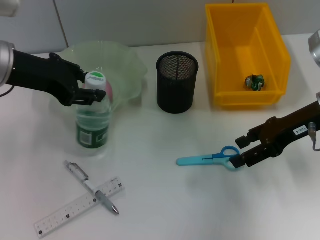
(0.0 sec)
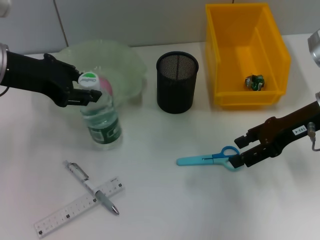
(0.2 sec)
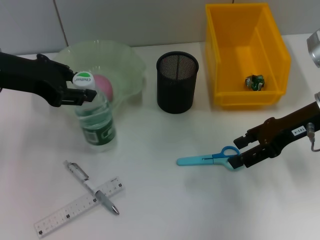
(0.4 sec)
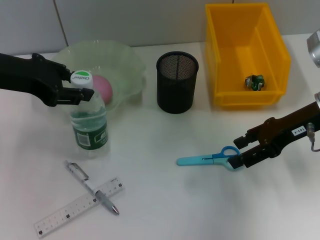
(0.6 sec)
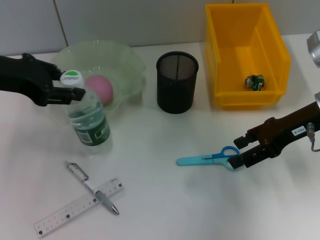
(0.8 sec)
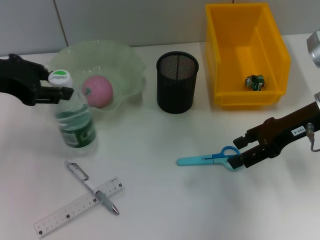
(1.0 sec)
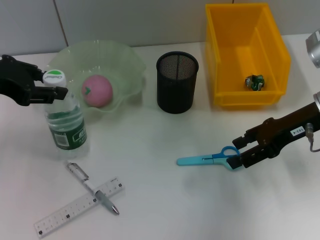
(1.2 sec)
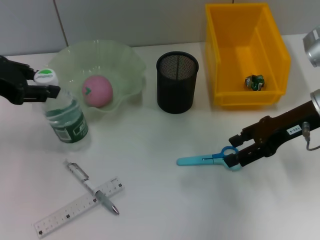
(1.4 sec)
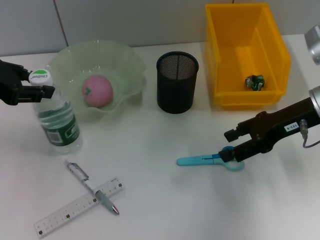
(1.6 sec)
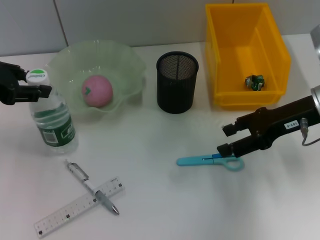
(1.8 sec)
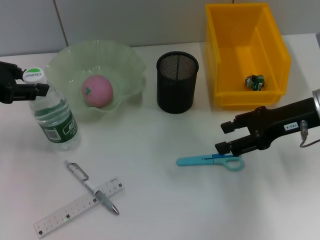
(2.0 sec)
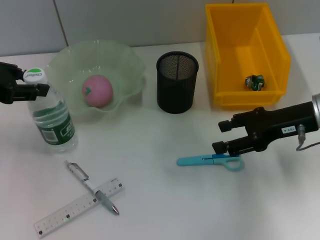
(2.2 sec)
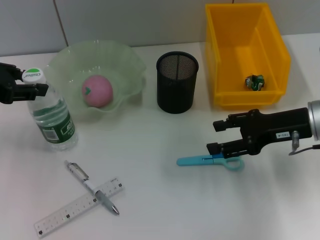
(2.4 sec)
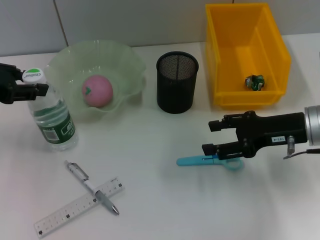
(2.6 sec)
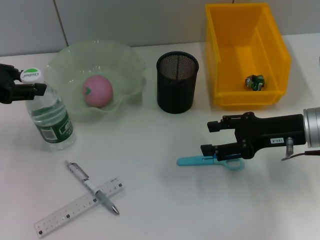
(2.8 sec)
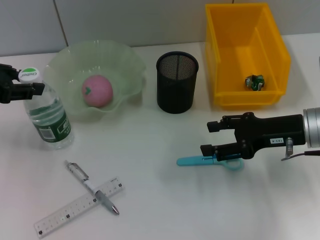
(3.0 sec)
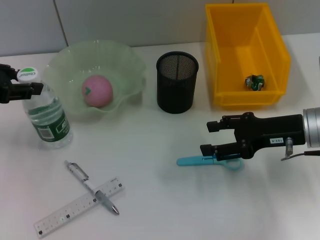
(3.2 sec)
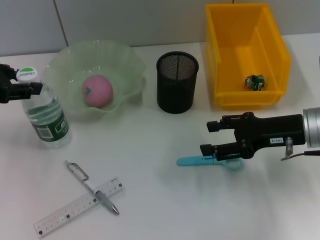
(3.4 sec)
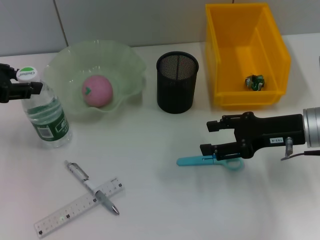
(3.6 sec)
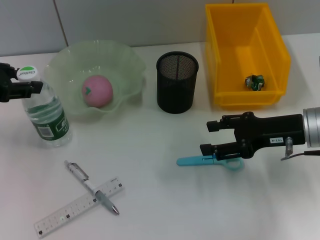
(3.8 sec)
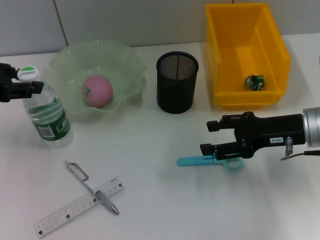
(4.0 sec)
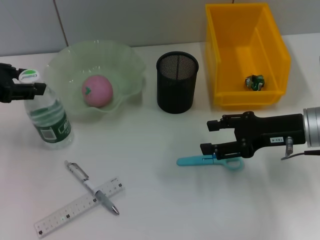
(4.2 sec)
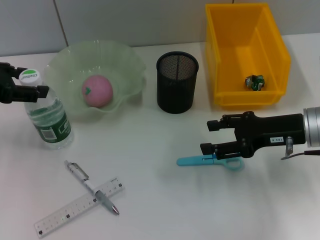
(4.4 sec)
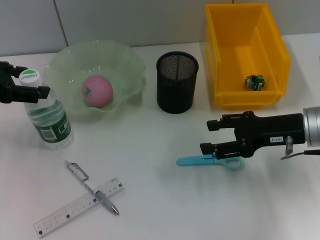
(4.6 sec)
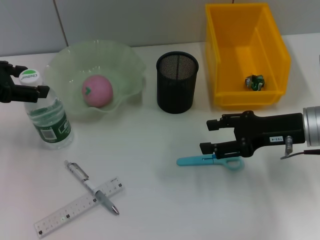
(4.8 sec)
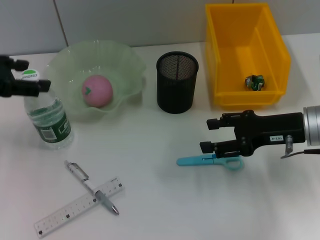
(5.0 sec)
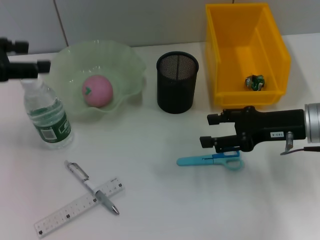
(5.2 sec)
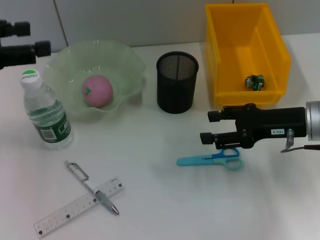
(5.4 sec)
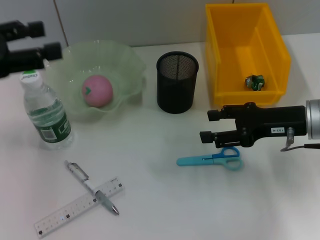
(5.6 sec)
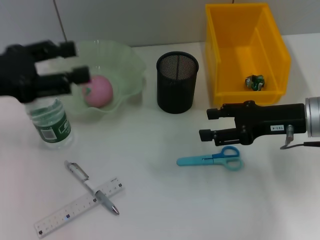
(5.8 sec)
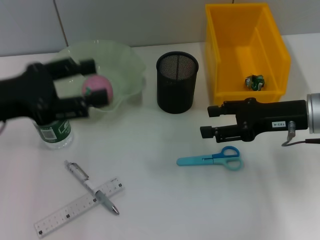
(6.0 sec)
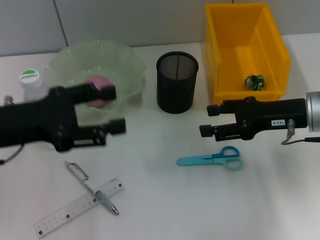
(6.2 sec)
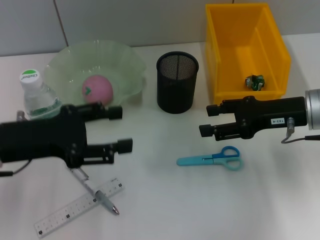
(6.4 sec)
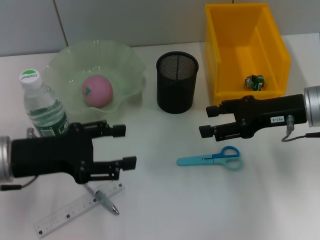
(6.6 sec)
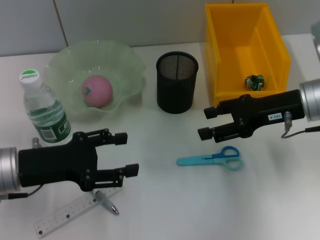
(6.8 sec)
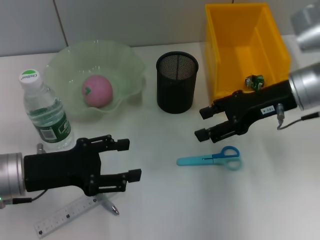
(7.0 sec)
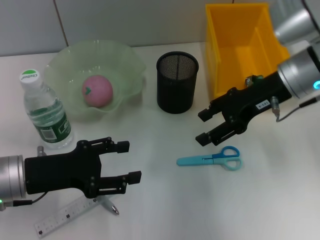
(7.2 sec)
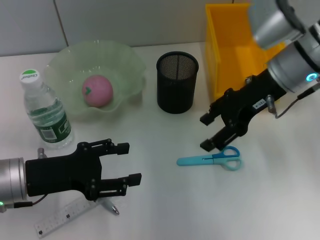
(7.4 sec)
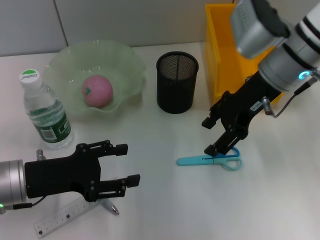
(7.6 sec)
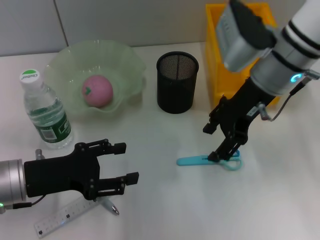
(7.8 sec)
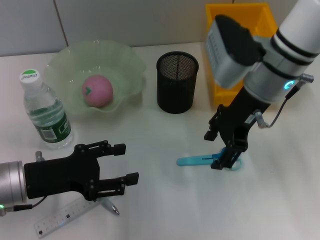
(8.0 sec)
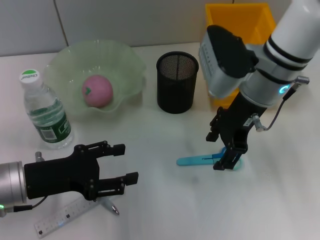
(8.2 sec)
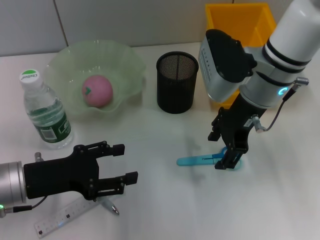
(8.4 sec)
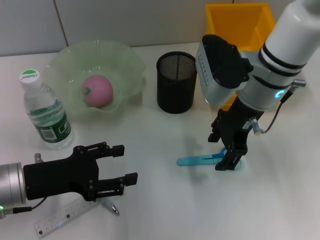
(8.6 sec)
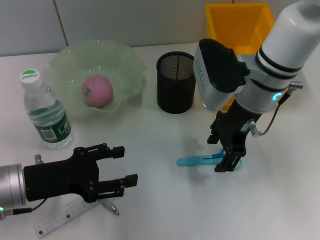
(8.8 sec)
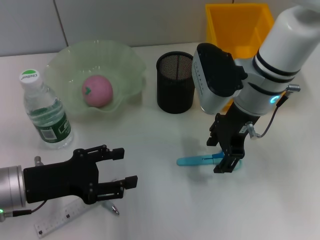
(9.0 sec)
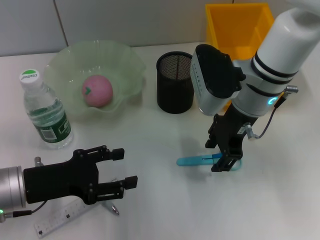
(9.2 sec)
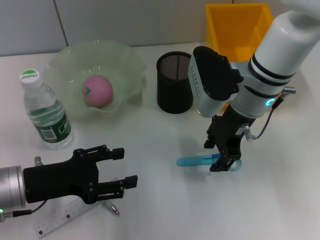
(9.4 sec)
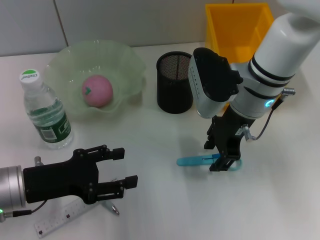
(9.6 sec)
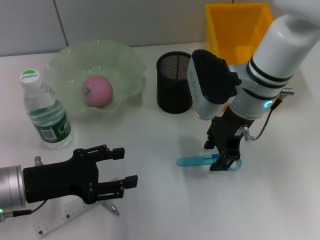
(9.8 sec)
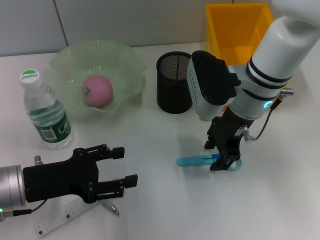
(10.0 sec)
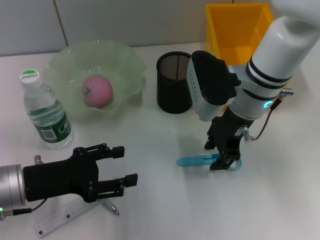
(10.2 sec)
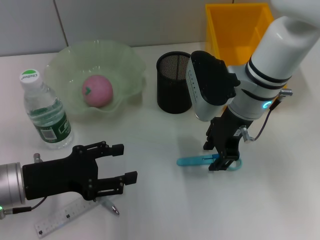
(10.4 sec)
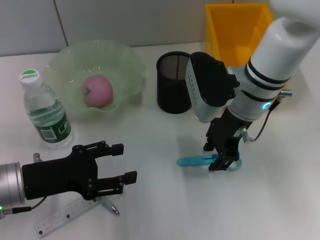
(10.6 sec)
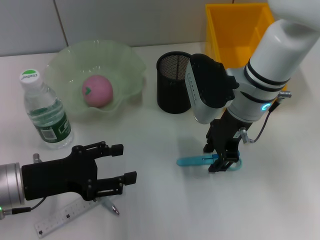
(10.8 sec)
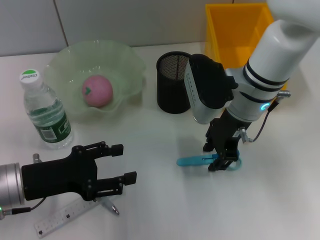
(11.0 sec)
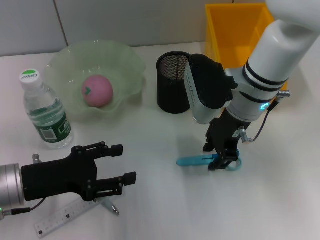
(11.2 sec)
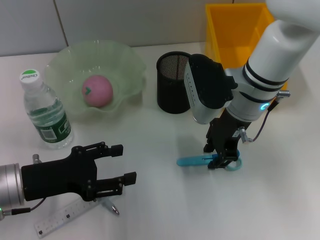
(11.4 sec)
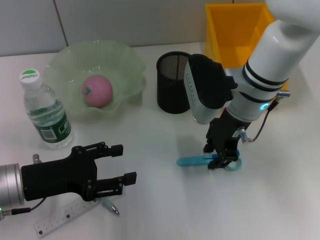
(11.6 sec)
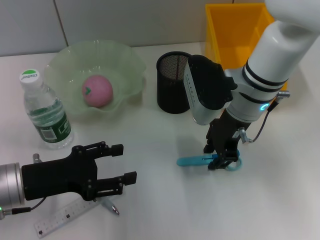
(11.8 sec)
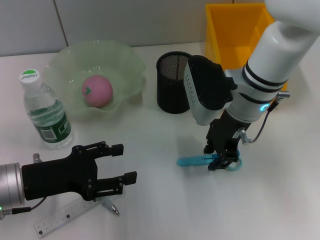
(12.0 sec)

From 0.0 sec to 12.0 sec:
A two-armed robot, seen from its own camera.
Step, from 0.0 sec to 4.6 sec: Place the water bottle on the table with the left hand.
From 0.0 sec to 1.6 sec: The left gripper moves to the left, some 5 cm.
From 1.6 sec to 3.0 sec: The right gripper moves approximately 5 cm.
From 3.0 sec to 4.4 sec: Both grippers stay put.
From 4.4 sec to 6.0 sec: The left gripper shifts by approximately 5 cm, and opens its fingers.
From 6.0 sec to 7.6 sec: The right gripper shifts approximately 15 cm to the left, upward and forward, while the left gripper is displaced downward by approximately 10 cm.
From 7.6 sec to 9.0 sec: The right gripper moves approximately 5 cm.
From 9.0 sec to 10.4 sec: Neither gripper changes place.
From 10.4 sec to 12.0 sec: The two grippers keep their place.

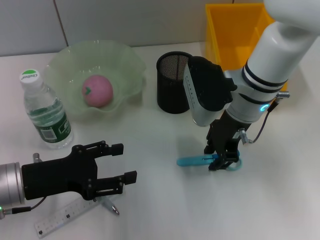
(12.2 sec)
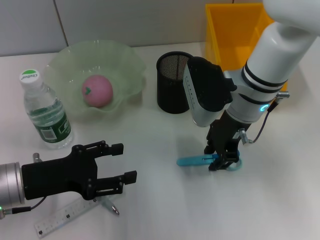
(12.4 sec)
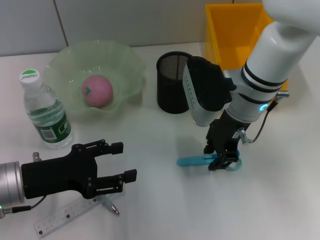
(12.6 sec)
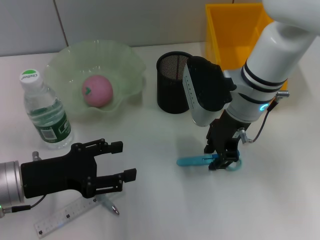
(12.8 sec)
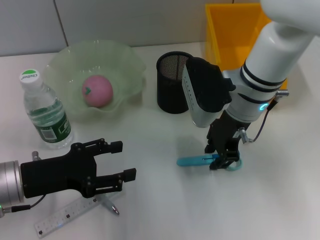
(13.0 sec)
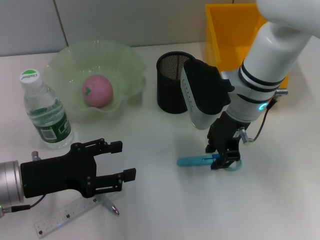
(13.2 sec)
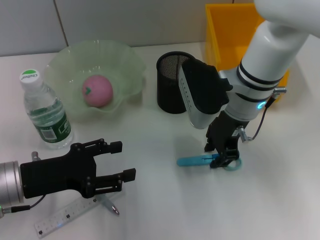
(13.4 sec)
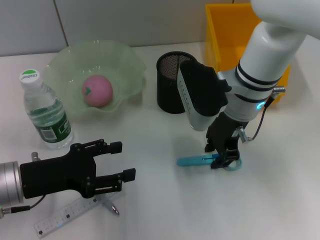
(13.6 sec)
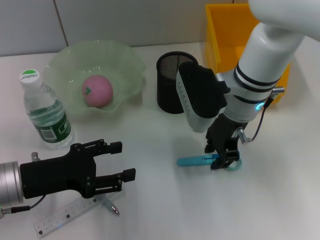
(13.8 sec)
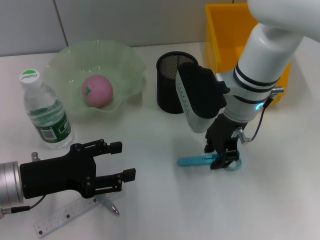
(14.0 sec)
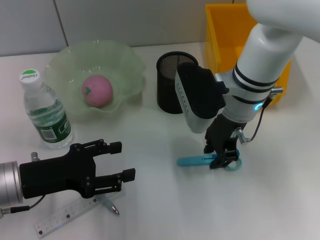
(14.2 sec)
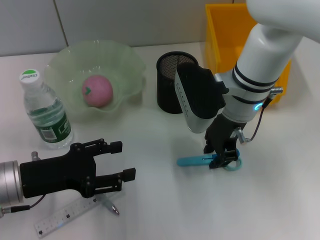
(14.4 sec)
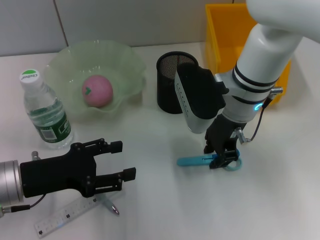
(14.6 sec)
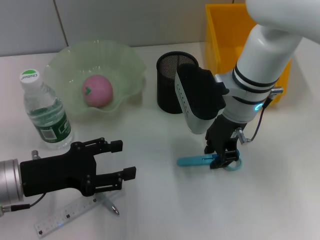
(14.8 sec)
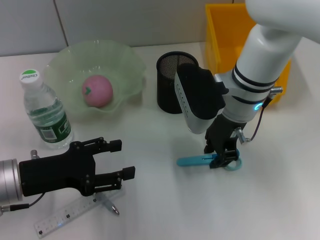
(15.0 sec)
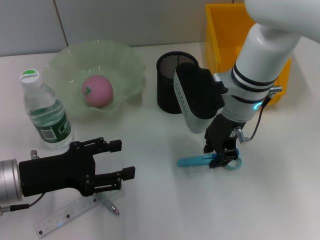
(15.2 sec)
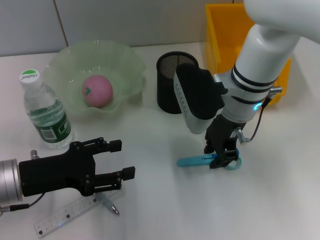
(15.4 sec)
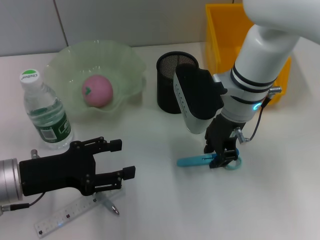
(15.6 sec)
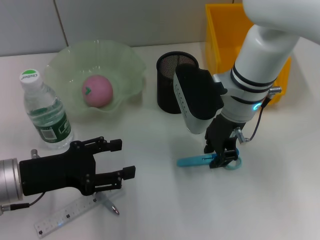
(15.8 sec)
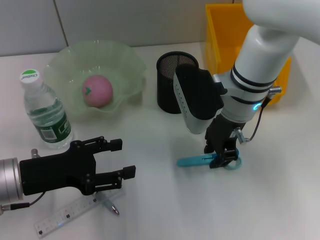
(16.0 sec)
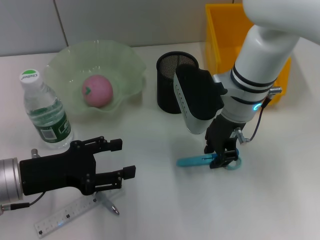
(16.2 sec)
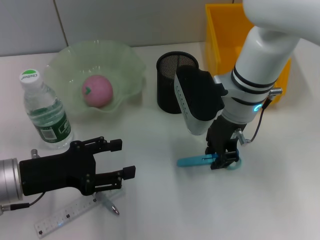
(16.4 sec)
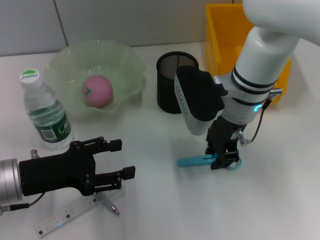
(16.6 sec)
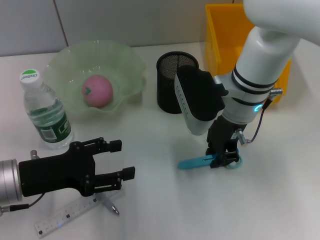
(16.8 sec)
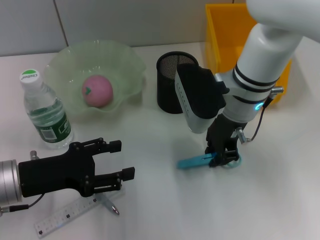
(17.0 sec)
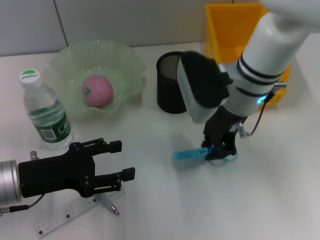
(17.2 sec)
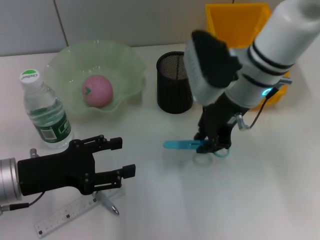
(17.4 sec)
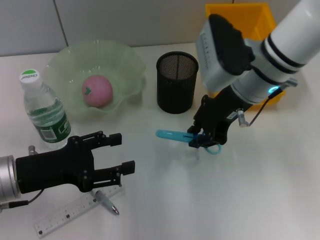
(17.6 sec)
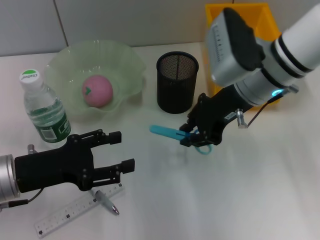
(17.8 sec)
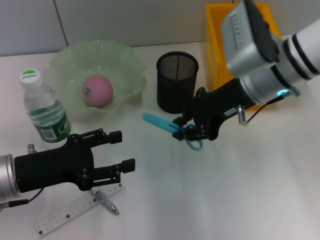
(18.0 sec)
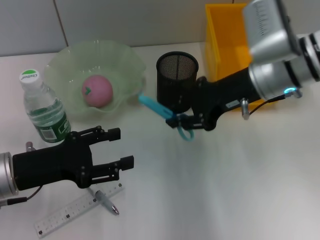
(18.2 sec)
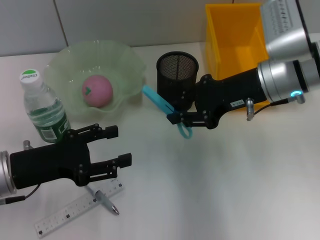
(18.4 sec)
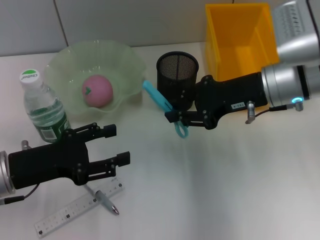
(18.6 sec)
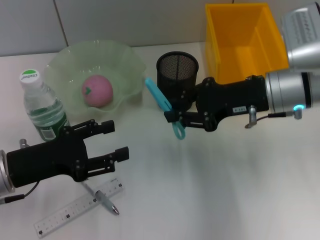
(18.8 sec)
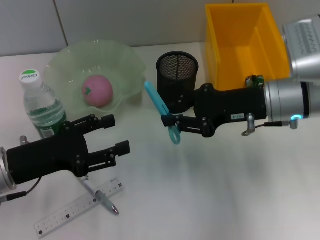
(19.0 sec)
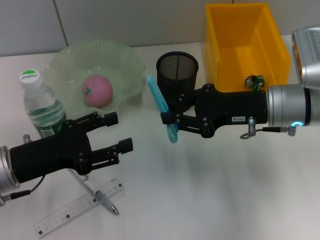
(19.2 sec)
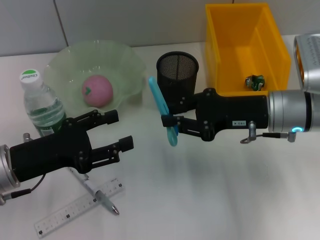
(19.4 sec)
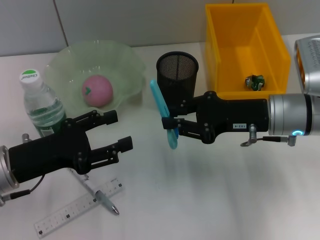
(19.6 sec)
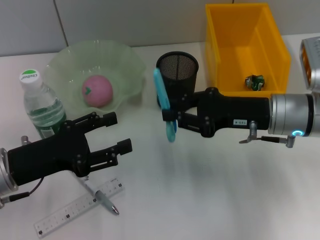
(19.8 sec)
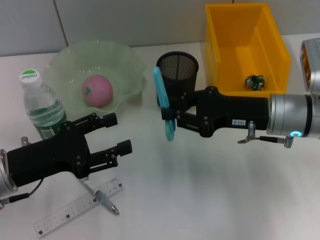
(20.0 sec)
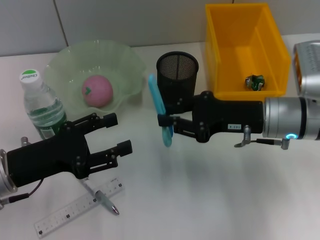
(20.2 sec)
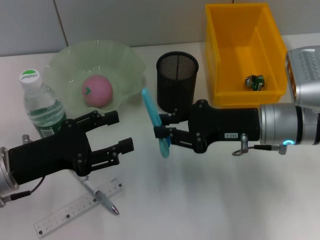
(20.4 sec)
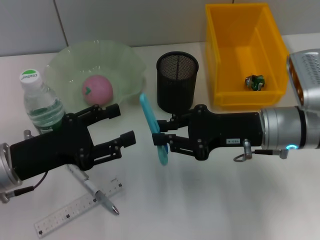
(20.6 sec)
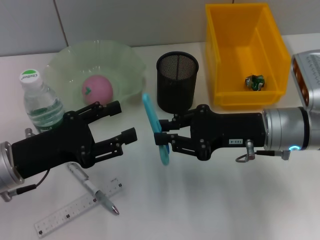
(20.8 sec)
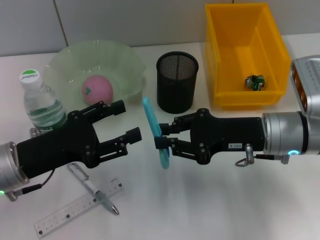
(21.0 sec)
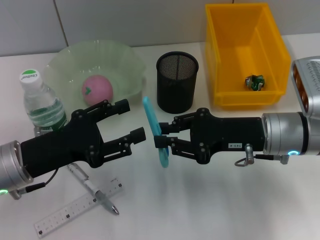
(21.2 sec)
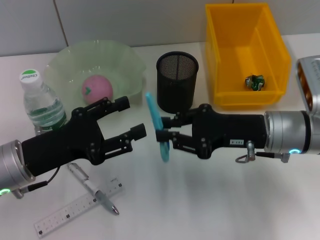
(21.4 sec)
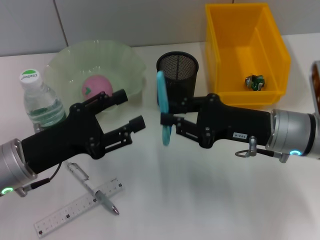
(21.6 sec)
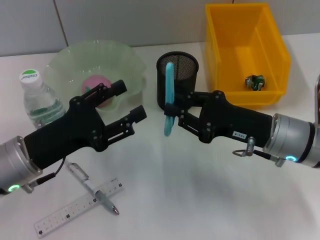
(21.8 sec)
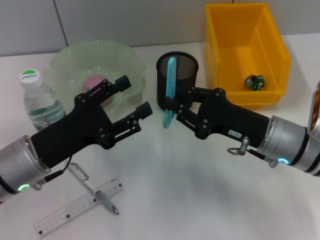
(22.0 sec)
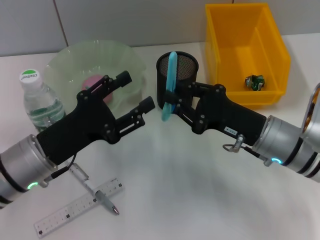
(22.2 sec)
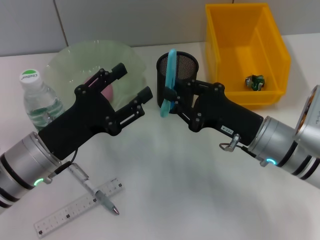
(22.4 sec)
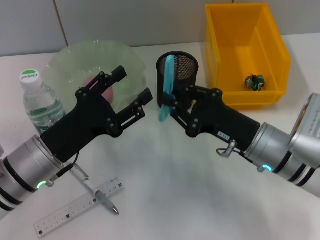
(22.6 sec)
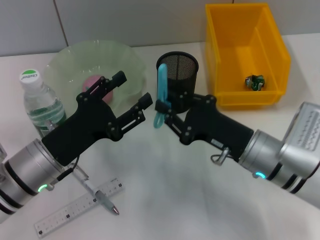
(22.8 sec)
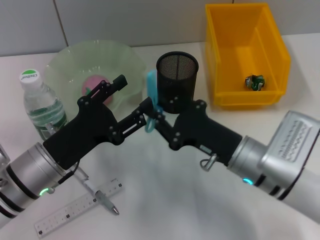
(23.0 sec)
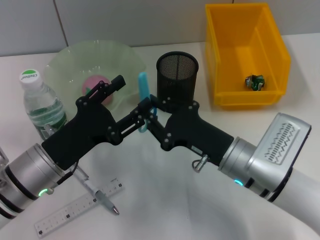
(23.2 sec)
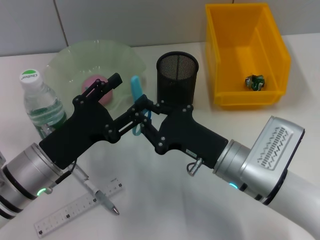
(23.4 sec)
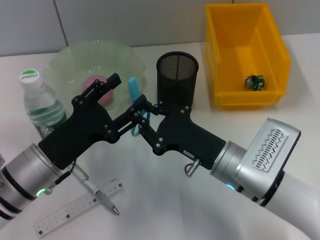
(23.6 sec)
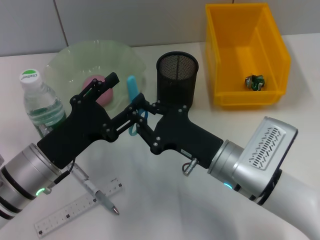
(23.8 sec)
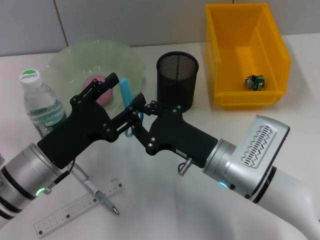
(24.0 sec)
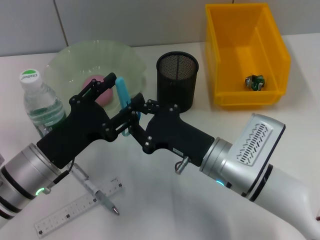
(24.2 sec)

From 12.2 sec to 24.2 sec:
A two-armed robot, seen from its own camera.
Step, from 12.2 sec to 16.8 sec: Grab the blue scissors with the right hand.
From 12.2 sec to 13.8 sec: There are only small adjustments of the grippers.
From 13.8 sec to 16.6 sec: Both grippers stay about where they are.
From 16.6 sec to 18.2 sec: The right gripper moves to the right, roughly 5 cm.
From 18.2 sec to 19.8 sec: The right gripper goes approximately 5 cm downward.
From 19.8 sec to 21.2 sec: There are only small adjustments of the grippers.
From 21.2 sec to 22.6 sec: The right gripper moves approximately 5 cm.
From 22.6 sec to 24.2 sec: The right gripper goes some 5 cm to the left.
